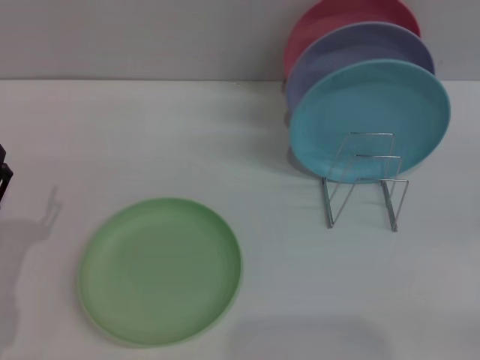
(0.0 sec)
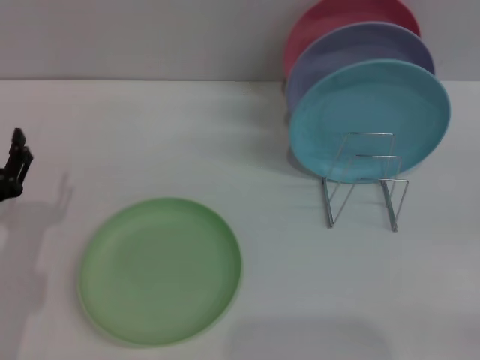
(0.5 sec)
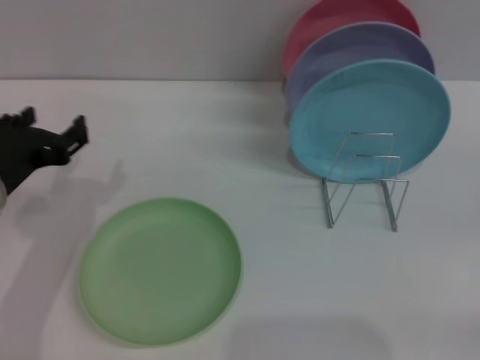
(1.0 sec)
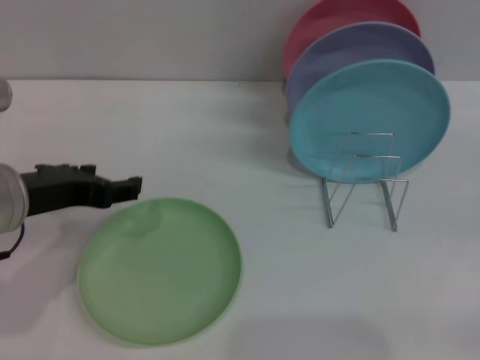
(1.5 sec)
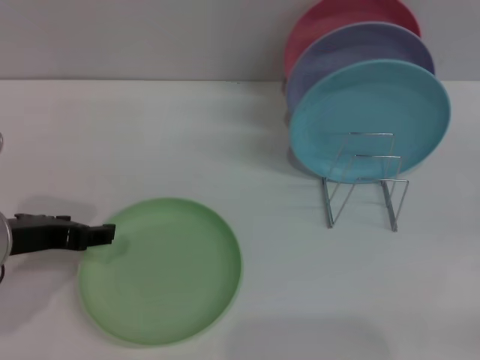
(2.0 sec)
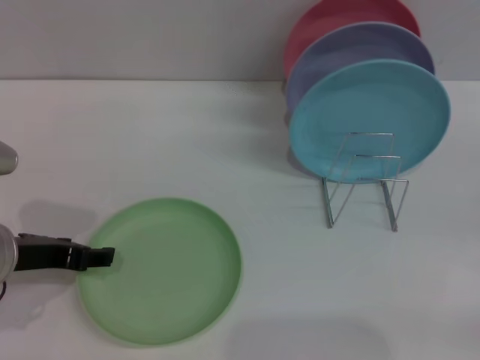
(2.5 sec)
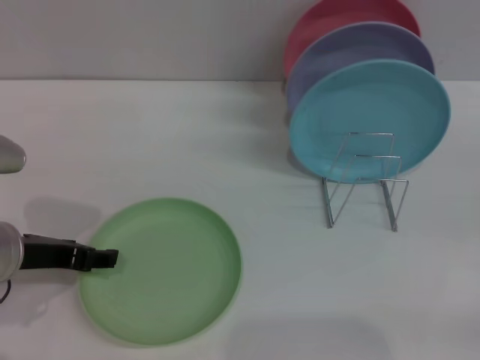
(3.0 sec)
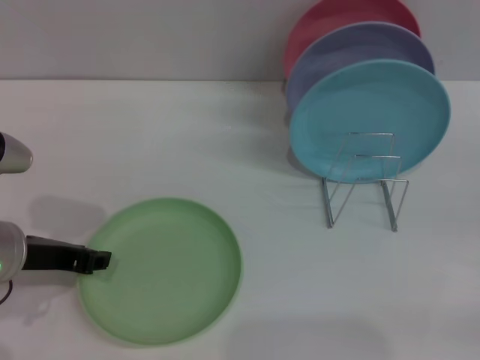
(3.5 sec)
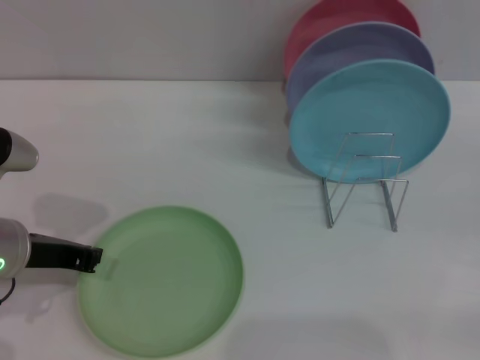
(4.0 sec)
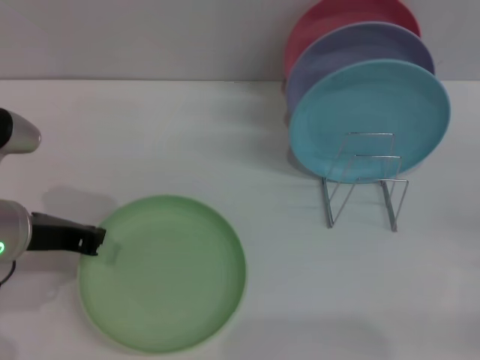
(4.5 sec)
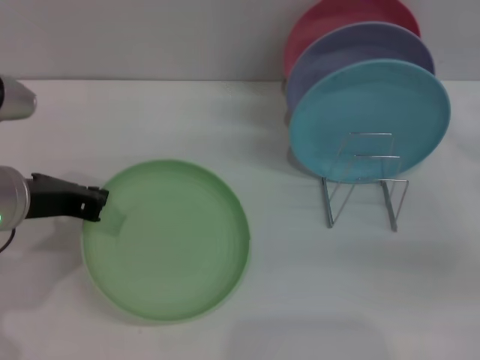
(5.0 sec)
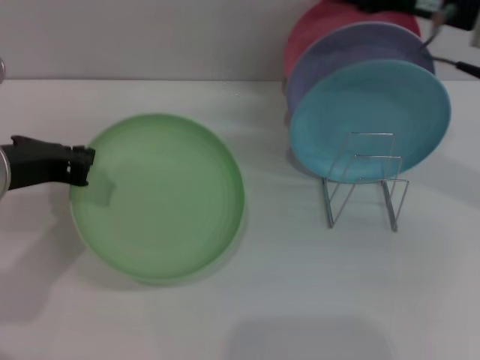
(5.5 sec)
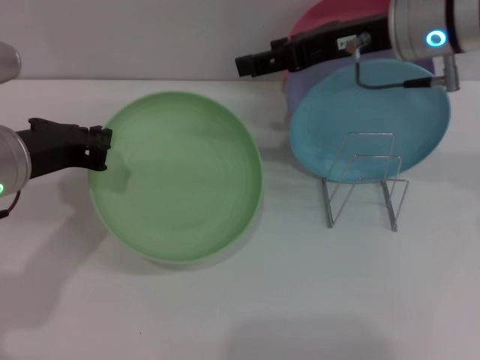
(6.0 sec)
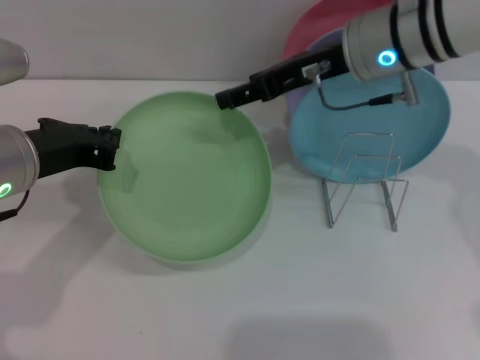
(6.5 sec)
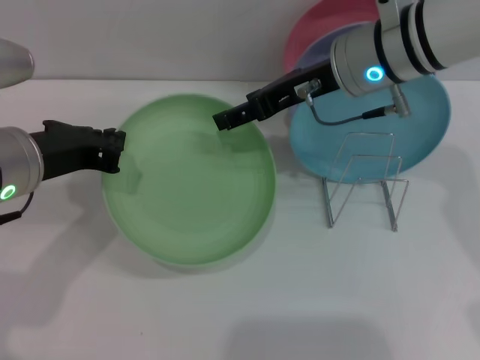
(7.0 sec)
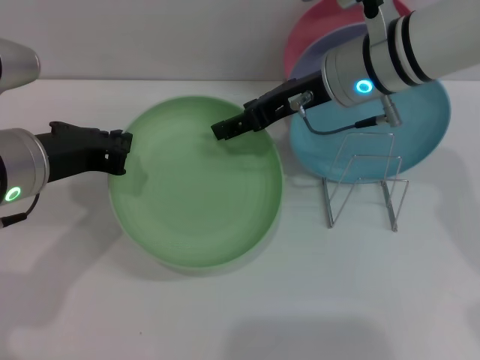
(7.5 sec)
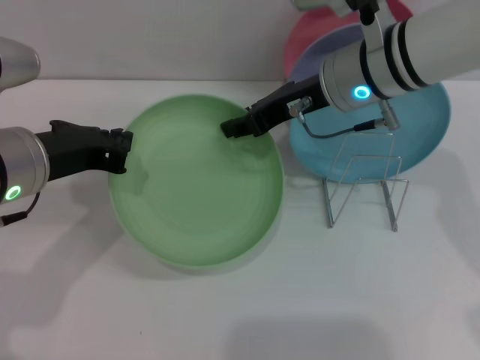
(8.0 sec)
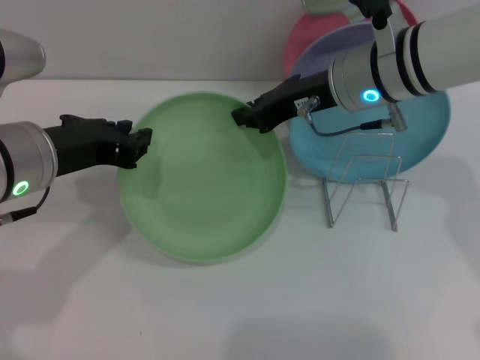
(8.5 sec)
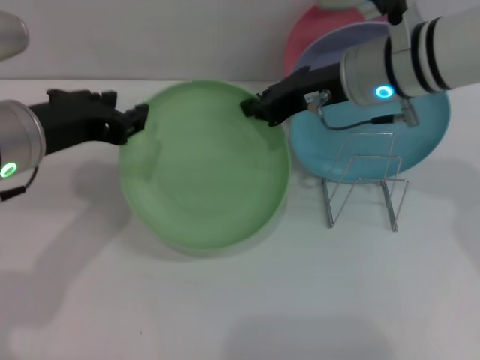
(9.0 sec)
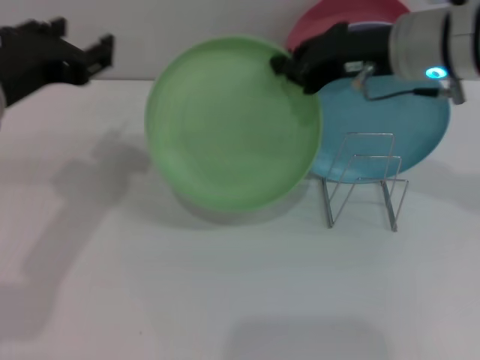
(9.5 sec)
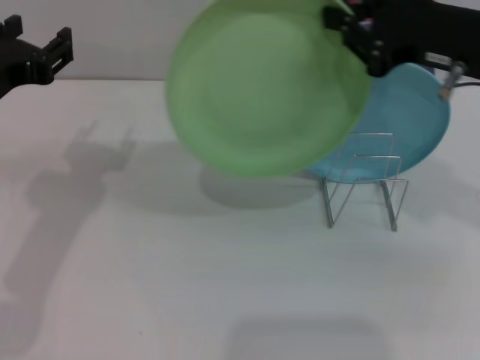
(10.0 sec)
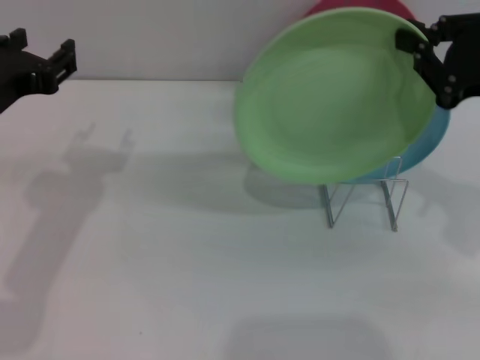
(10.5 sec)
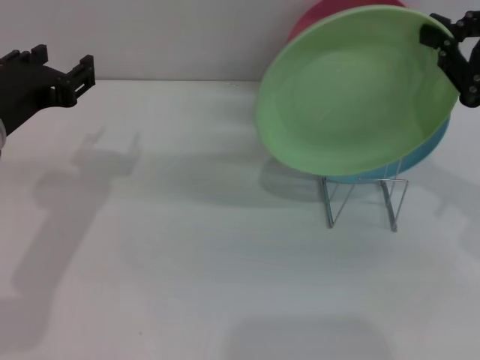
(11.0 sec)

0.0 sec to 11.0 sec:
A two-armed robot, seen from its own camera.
Task of the whole recording: Grip the plate with one hand, pass it to the other, then set it on the shelf.
Step, 0.0 sec to 4.5 sec: Pick up the plate with the left gripper.
Step, 5.0 sec to 9.5 sec: Pass the plate from the left gripper to the right gripper.
0.0 sec to 2.0 sec: The left gripper shifts about 10 cm upward and forward.
2.0 sec to 3.5 sec: The grippers move only a little.
3.5 sec to 5.5 sec: The right gripper heads upward, to the left and forward, covering roughly 30 cm. The left gripper is displaced upward by approximately 5 cm, and closes up.
5.5 sec to 7.5 sec: The right gripper heads to the left, covering about 10 cm.
7.5 sec to 9.0 sec: The right gripper closes. The left gripper opens up.
9.0 sec to 11.0 sec: The right gripper goes about 20 cm to the right and backward.

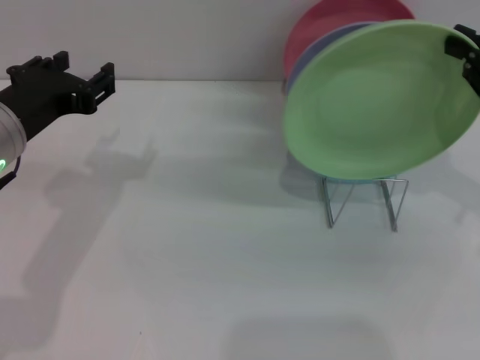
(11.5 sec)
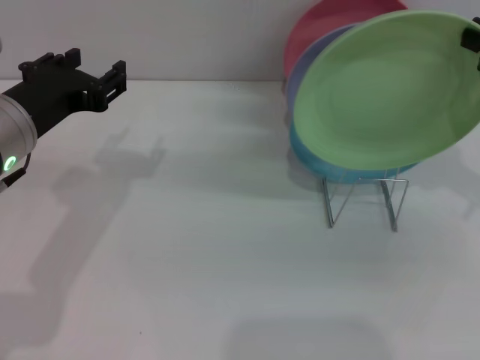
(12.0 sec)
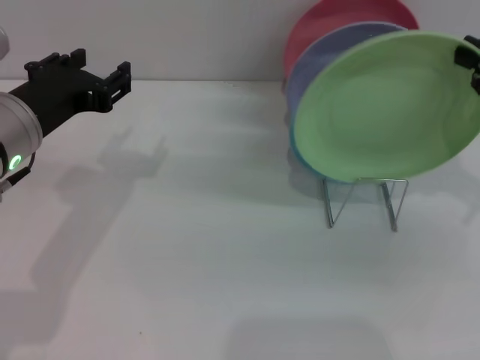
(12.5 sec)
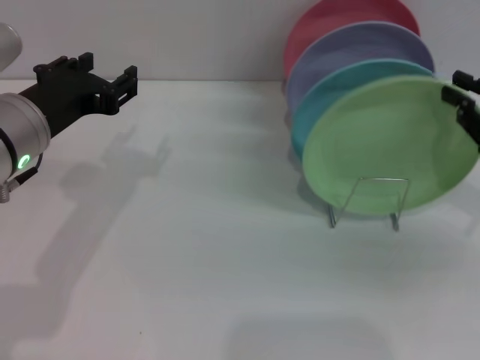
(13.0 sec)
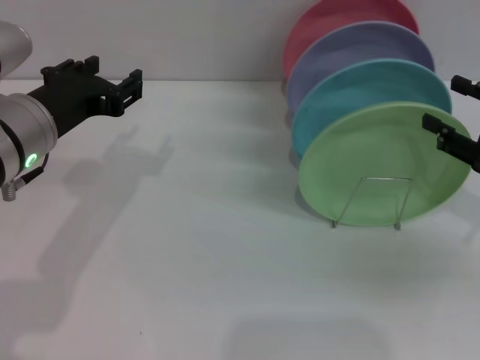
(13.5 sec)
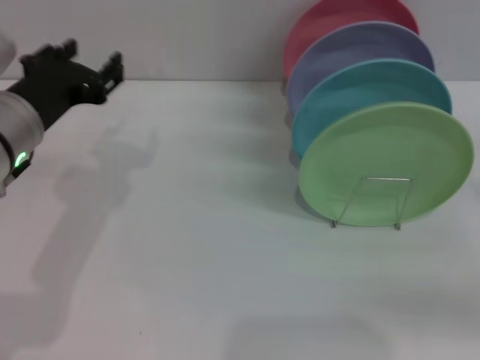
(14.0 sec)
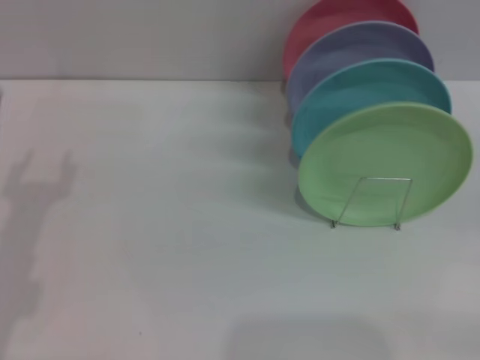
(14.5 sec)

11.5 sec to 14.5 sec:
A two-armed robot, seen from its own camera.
Task of the whole recording: Grip the plate with one hand, pass it to the other, then set it on the shelf.
Step, 11.5 sec to 13.5 sec: Place the plate on the shelf with the right gripper.
11.5 sec to 13.0 sec: The right gripper shifts roughly 5 cm downward.
13.0 sec to 14.5 sec: The right gripper heads to the right, backward and downward, covering approximately 15 cm, and opens up. Meanwhile the left gripper travels downward, to the left and backward by some 15 cm.

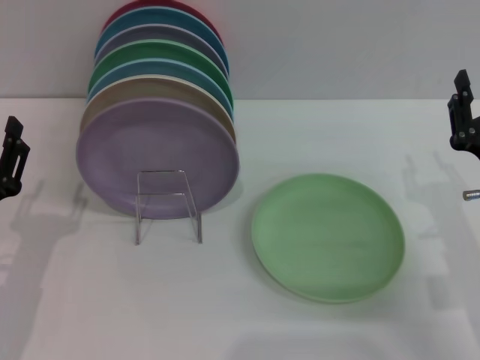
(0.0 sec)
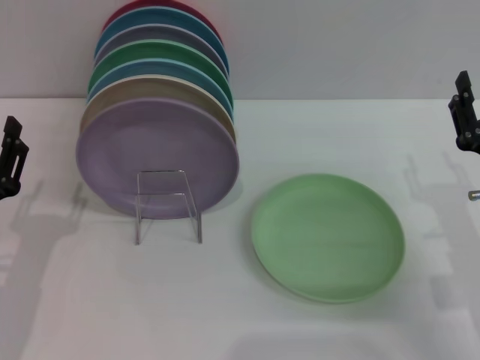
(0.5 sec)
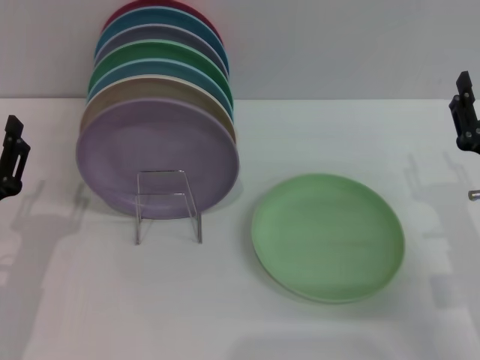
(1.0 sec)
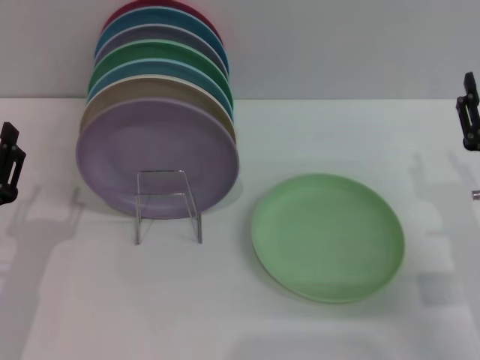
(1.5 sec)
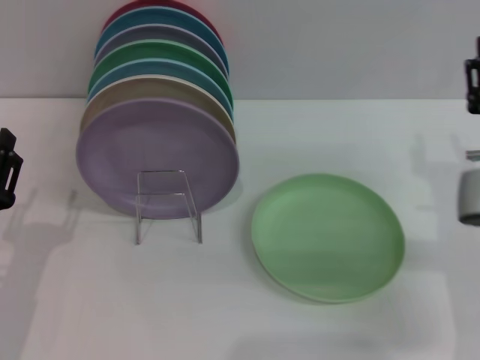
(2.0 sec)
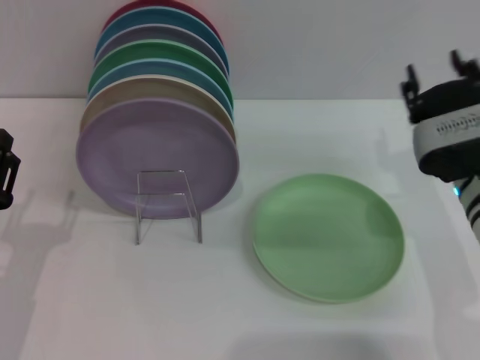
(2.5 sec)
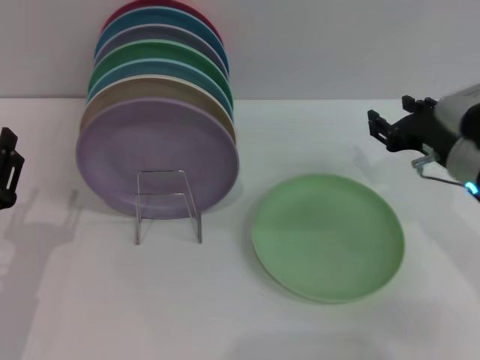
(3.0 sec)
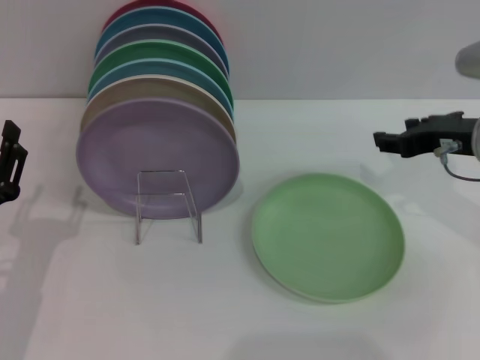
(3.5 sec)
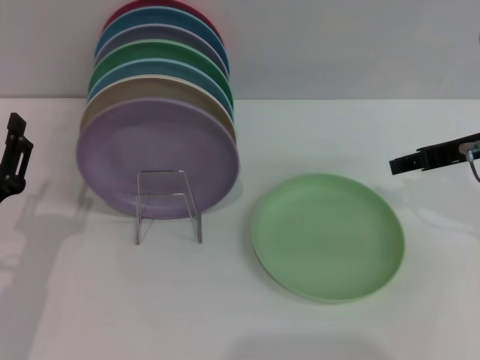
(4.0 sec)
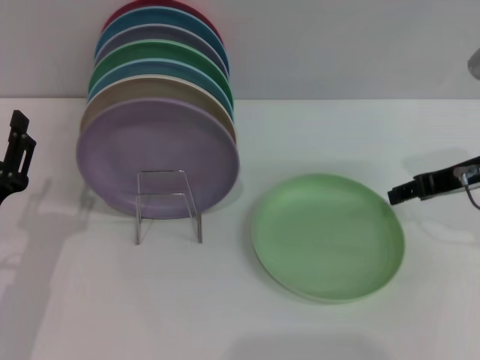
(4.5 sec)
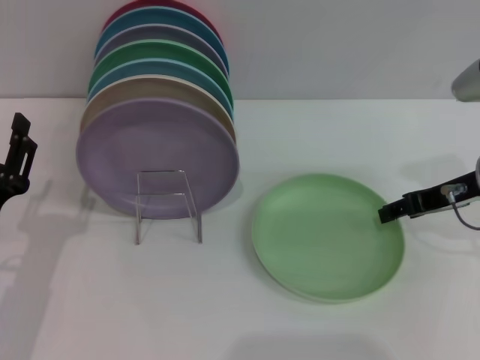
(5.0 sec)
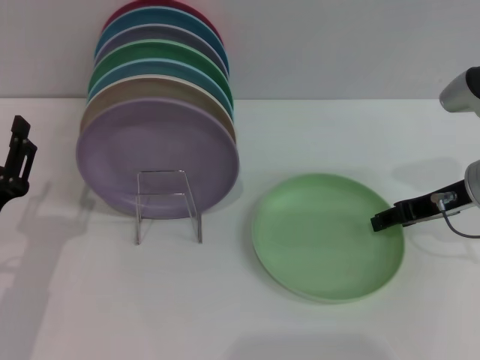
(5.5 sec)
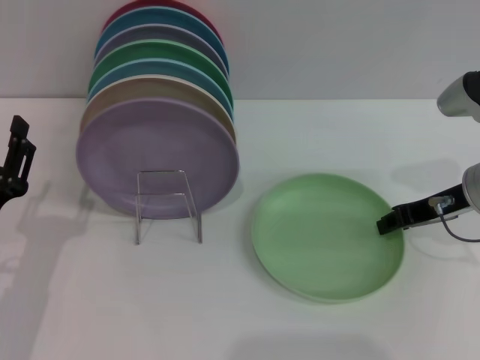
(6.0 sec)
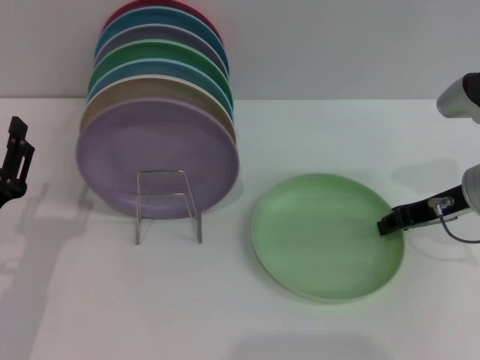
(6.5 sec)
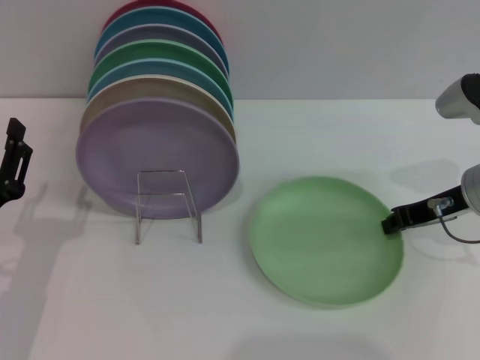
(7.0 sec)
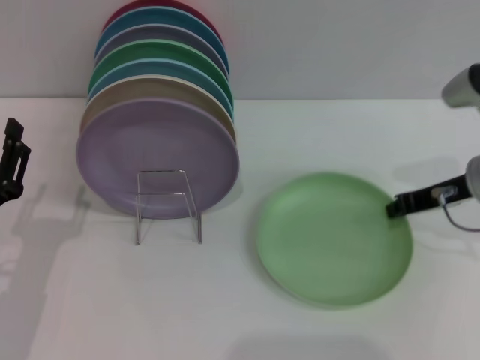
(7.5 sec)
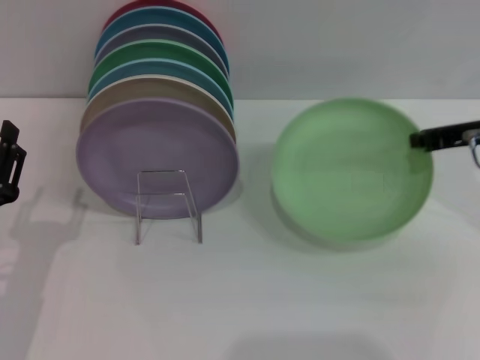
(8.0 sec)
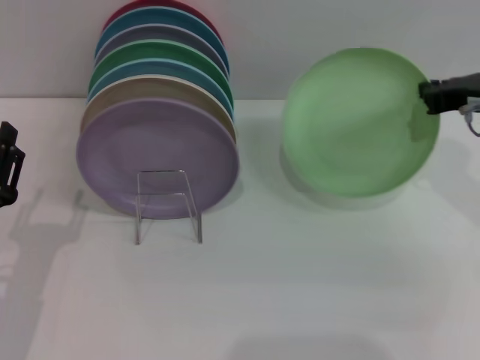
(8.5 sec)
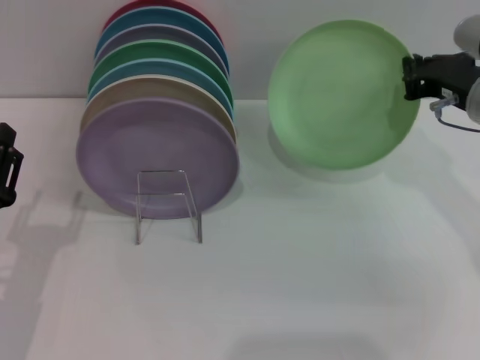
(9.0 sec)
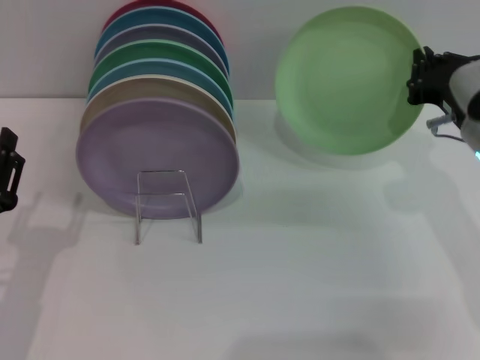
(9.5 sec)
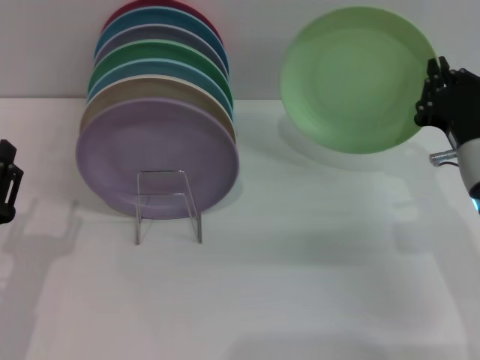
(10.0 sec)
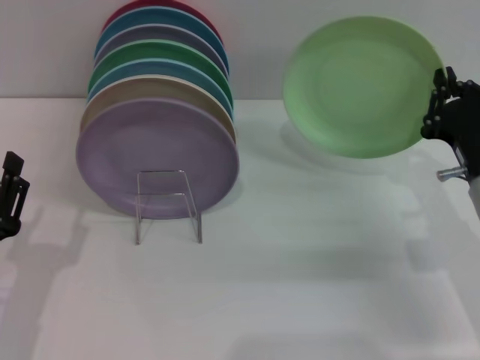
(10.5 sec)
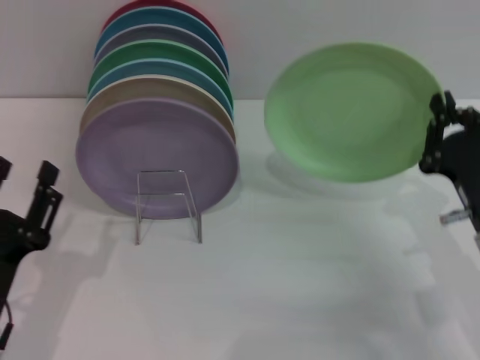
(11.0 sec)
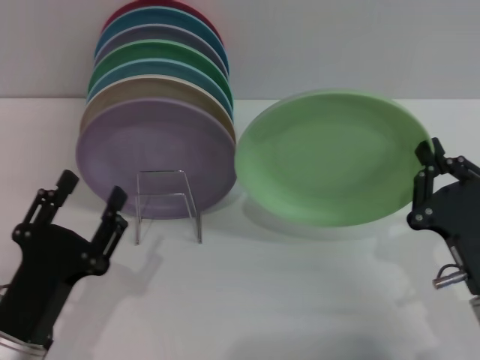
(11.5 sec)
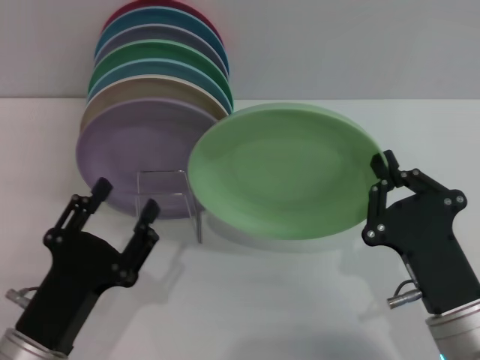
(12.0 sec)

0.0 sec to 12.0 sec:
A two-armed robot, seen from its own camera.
Task of the whole recording: Grip the plate with one hand, pass it to the other, then set it on the shelf.
Step, 0.0 sec to 9.5 sec: Pick up the plate with the right gripper.
2.0 sec to 4.0 sec: The right gripper shifts some 10 cm upward and forward.
4.0 sec to 6.0 sec: The right gripper moves downward, about 5 cm.
6.0 sec to 8.0 sec: The right gripper travels upward by approximately 5 cm, and closes its fingers.
8.0 sec to 10.0 sec: The right gripper moves downward, about 10 cm.
10.0 sec to 12.0 sec: The right gripper goes approximately 15 cm backward and to the left. The left gripper travels to the right by roughly 5 cm.
